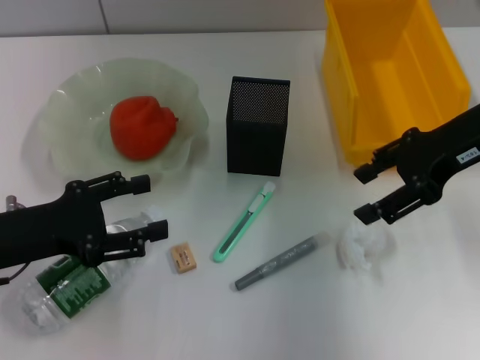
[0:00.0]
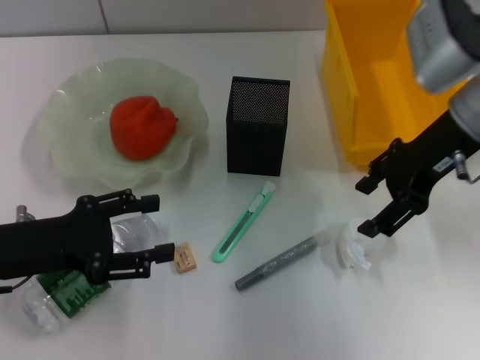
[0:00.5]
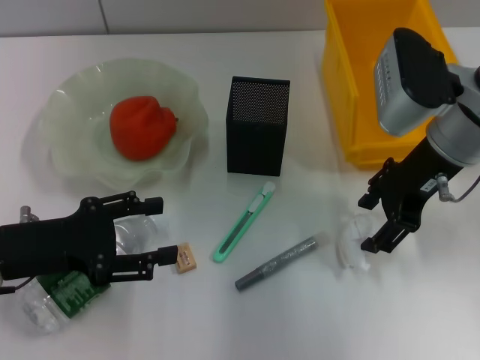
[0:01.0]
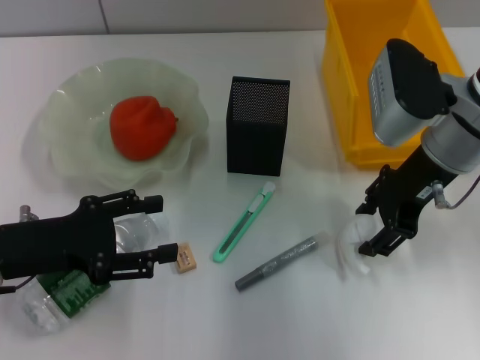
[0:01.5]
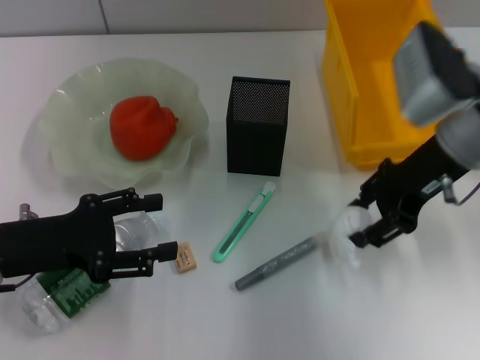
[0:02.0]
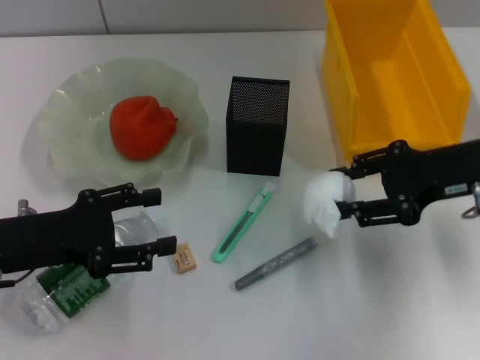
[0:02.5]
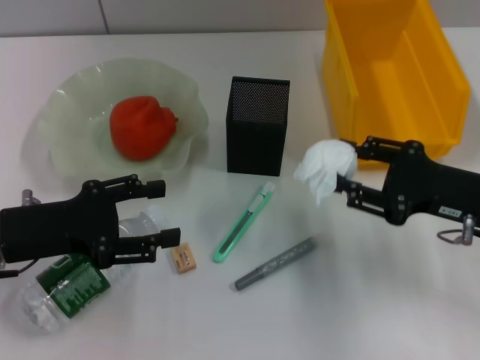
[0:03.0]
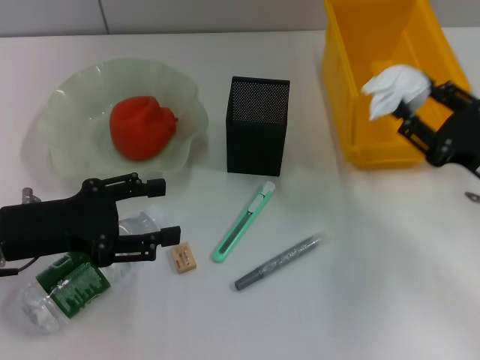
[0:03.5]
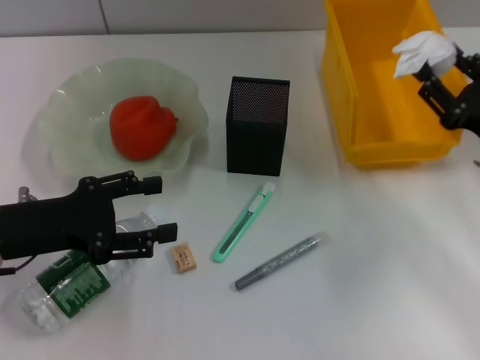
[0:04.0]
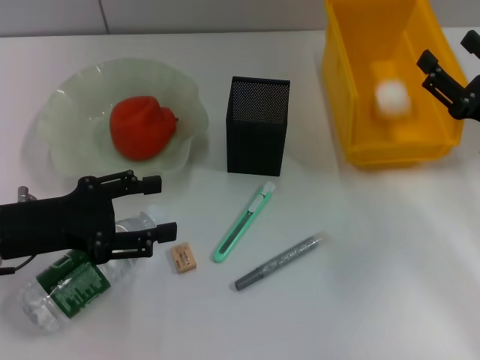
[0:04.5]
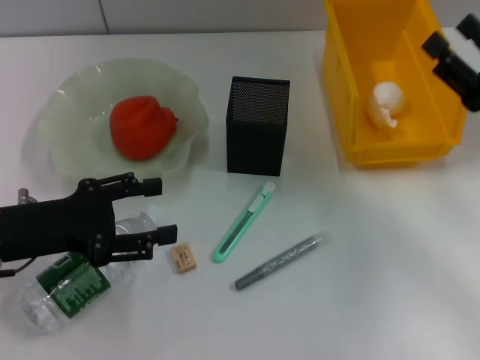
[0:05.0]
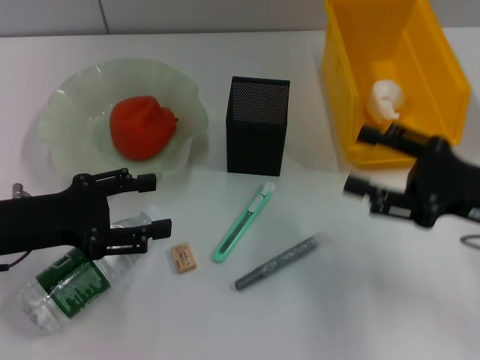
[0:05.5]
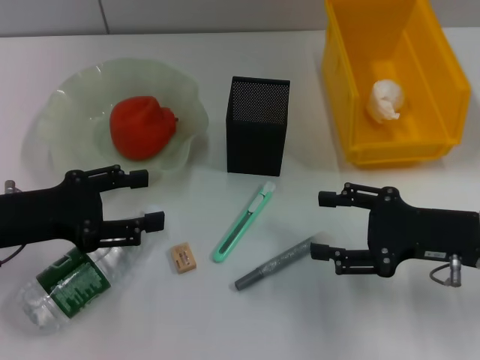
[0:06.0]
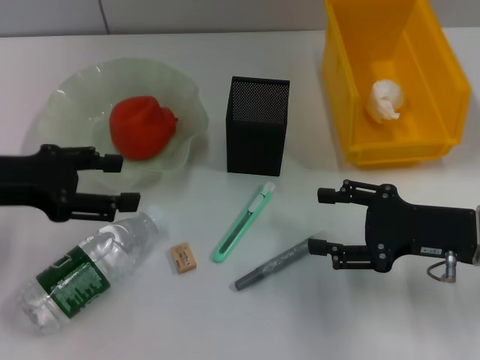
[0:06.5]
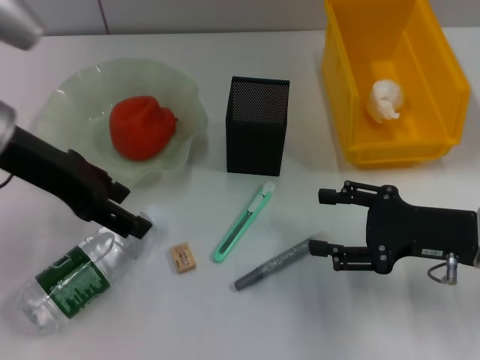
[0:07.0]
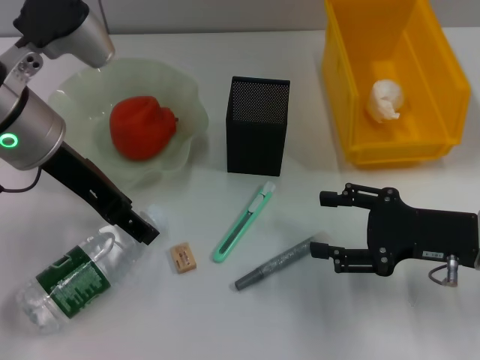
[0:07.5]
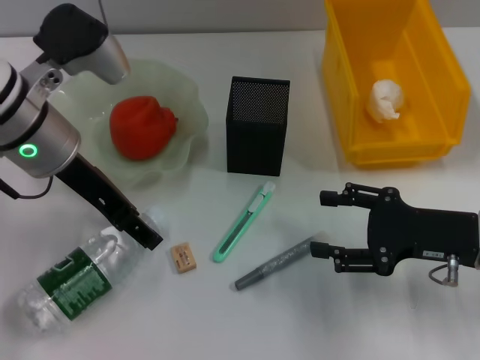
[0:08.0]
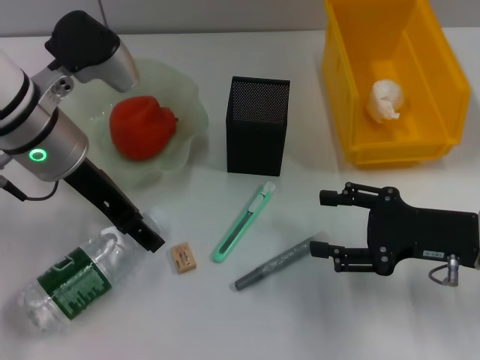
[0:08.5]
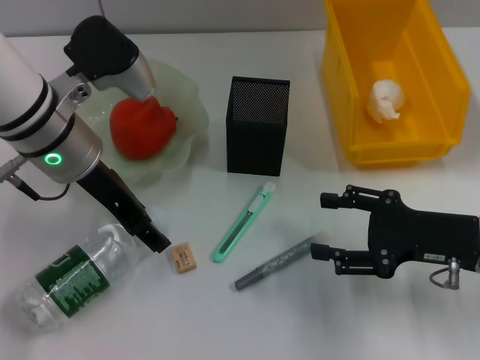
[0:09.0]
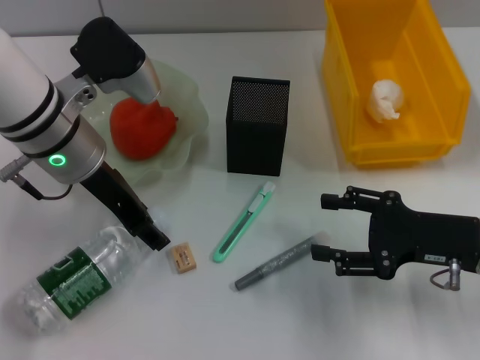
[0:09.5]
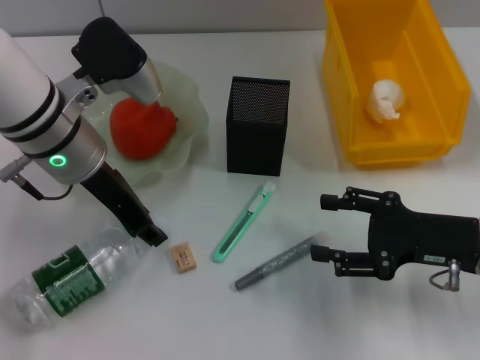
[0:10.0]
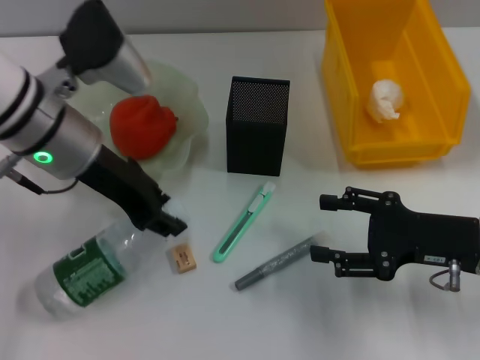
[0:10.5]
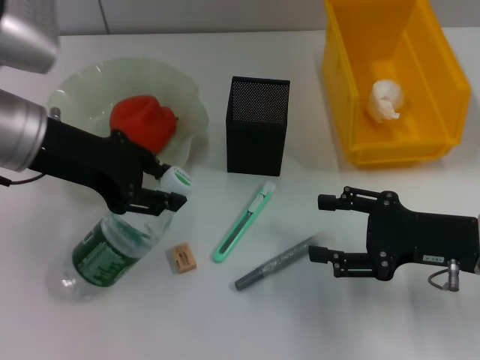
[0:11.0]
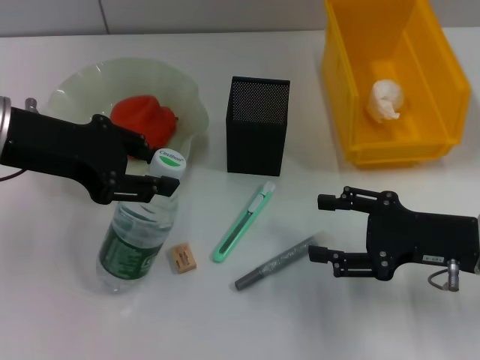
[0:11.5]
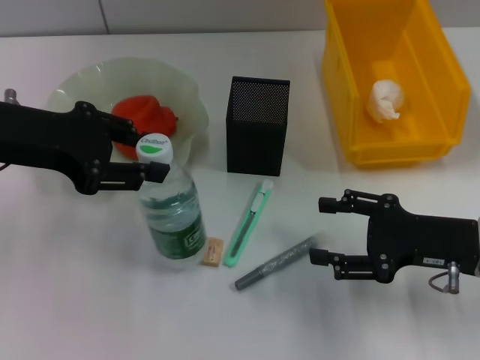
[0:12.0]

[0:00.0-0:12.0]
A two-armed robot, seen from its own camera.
Step, 2.0 to 4.5 s: Place the paper ball into the trash can with the right hand.
Step, 5.0 to 10.0 s: Grab the water bottle with the left hand.
2.0 to 4.0 s: The right gripper heads to the right, downward and backward, covering about 15 cm.
6.0 to 8.0 s: The left gripper heads to the right, forward and upward, covering approximately 15 cm.
8.0 to 10.0 s: The left gripper closes.
10.0 to 12.0 s: The left gripper heads to the left, covering approximately 10 cm.

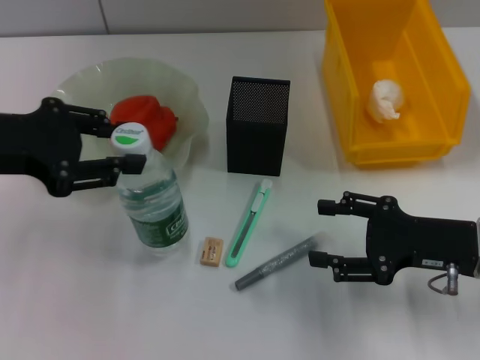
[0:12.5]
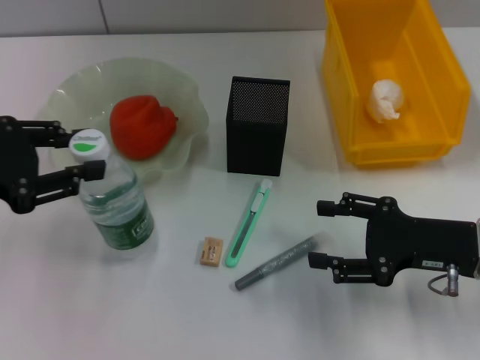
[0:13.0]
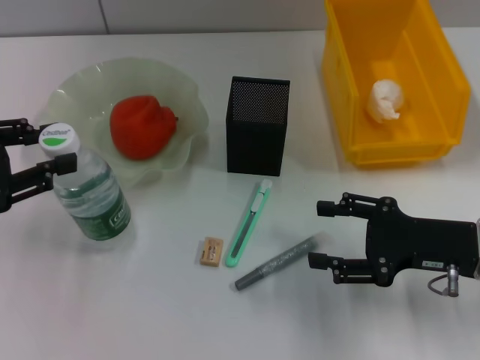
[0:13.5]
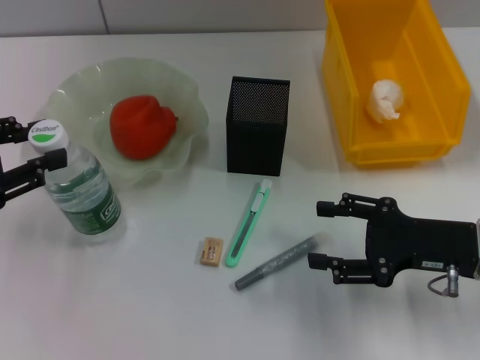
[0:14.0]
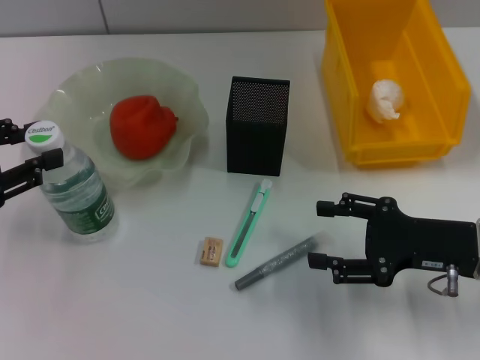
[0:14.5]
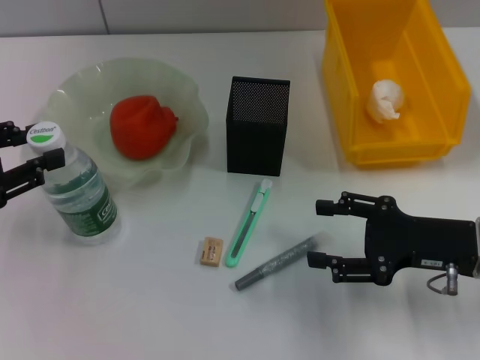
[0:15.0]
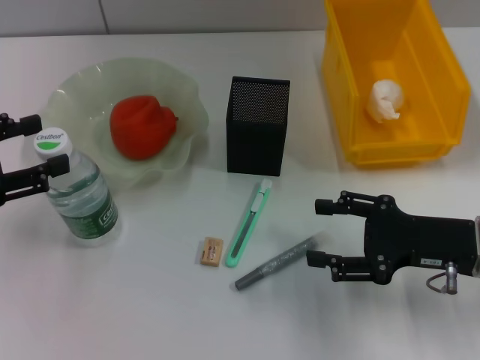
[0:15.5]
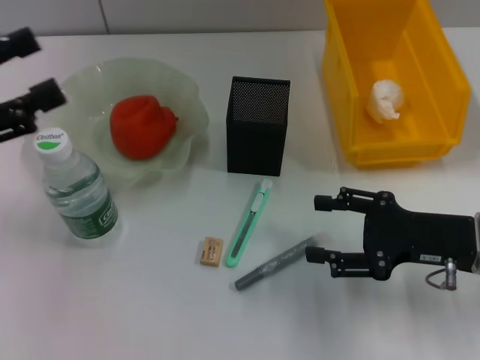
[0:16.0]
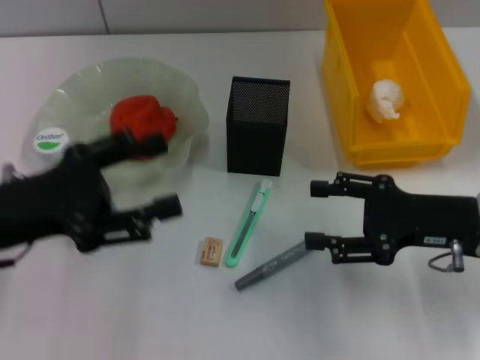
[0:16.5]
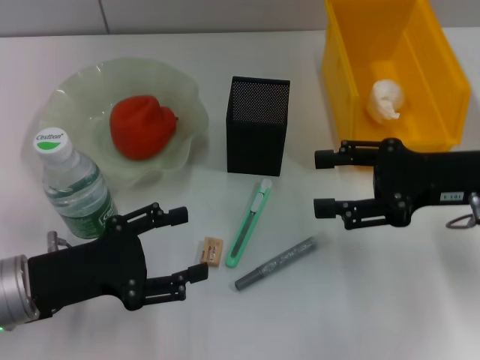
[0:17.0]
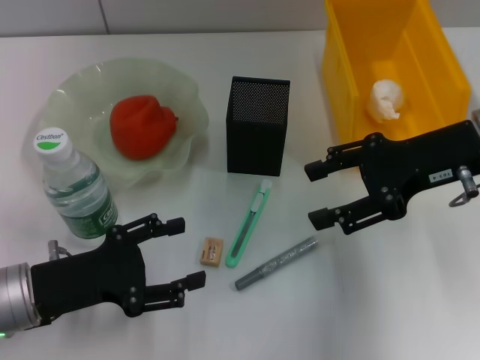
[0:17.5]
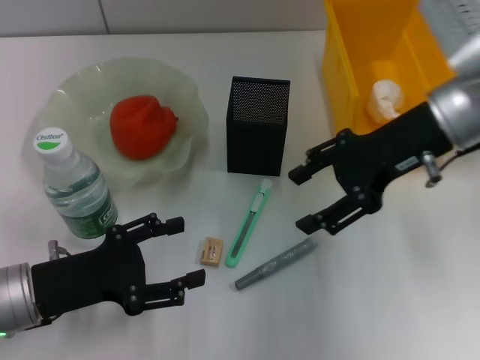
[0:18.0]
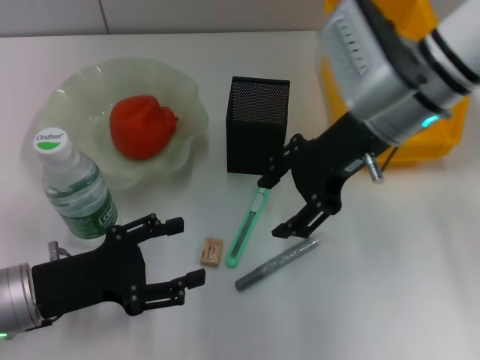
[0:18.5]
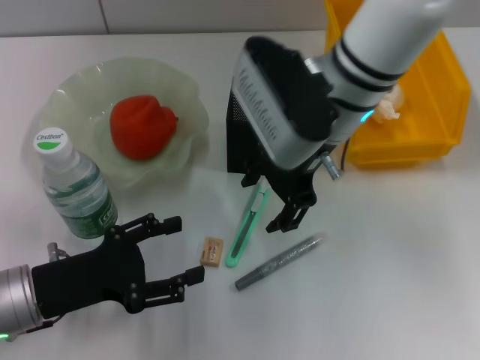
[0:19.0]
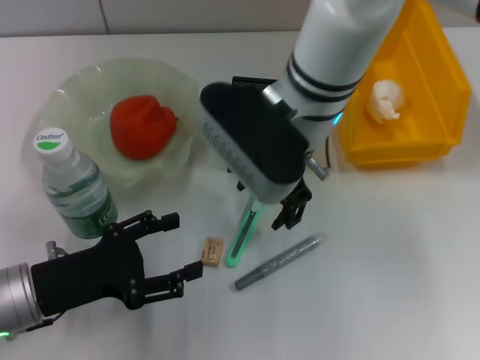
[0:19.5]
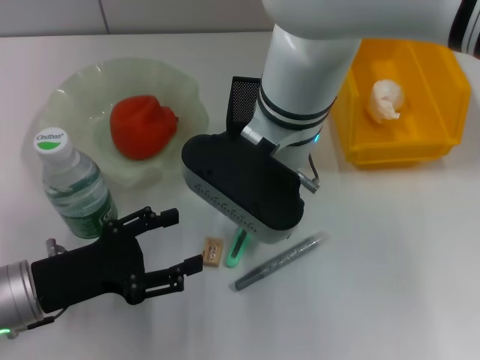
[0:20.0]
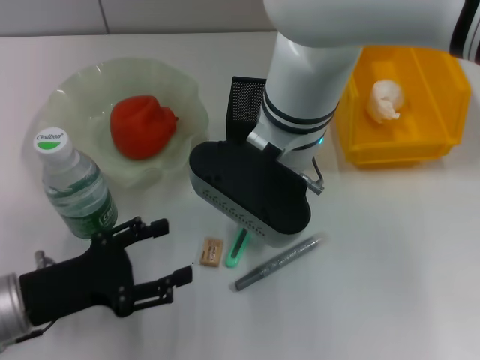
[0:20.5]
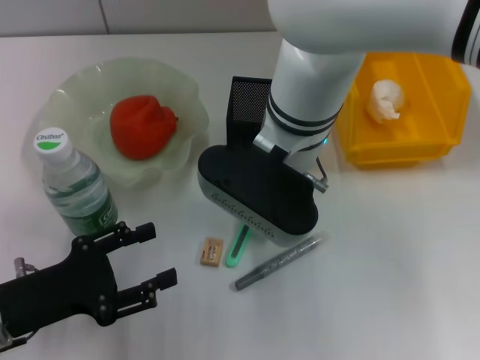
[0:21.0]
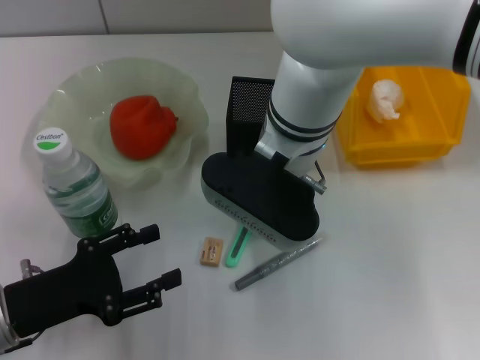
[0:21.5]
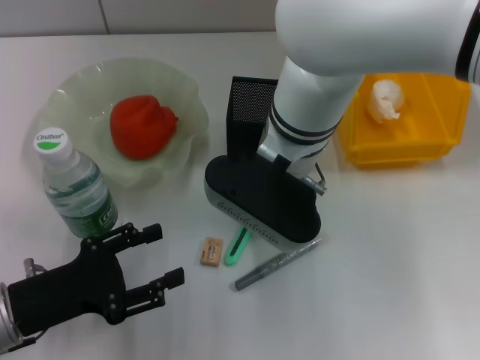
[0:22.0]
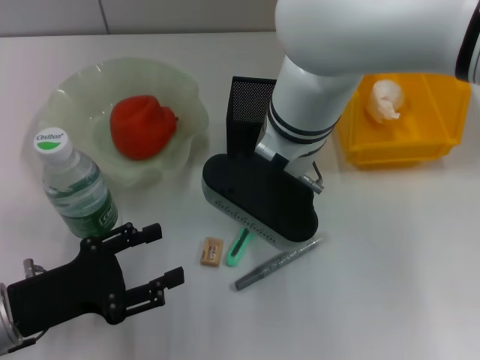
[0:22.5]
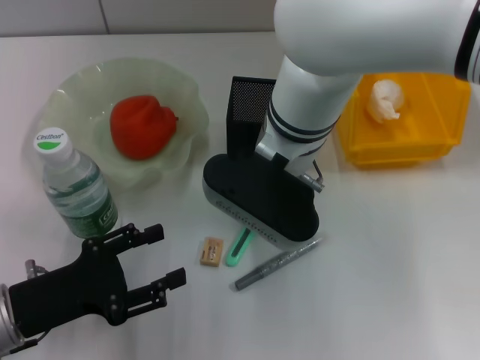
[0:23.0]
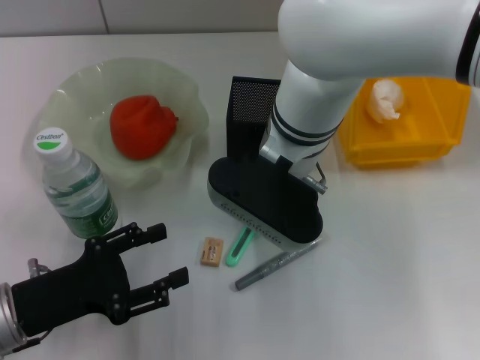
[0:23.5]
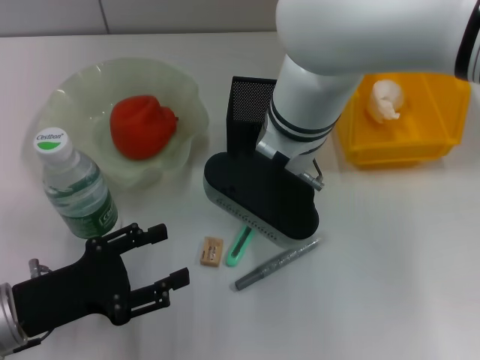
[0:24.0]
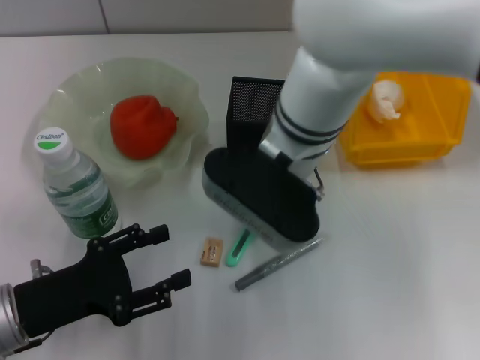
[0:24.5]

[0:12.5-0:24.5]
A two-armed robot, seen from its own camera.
Step, 12.5 to 15.5 s: Place the water bottle on the table with the left hand.
12.5 to 14.5 s: The left gripper goes some 5 cm to the left.
14.5 to 16.5 s: The left gripper heads to the right, covering about 10 cm, and opens up.
16.5 to 18.5 s: The right gripper shifts roughly 20 cm to the left, upward and forward; the left gripper is displaced downward by approximately 10 cm.
18.5 to 20.5 s: The right gripper heads to the left, covering about 10 cm.
20.5 to 22.5 s: The right gripper closes.
22.5 to 24.5 s: The grippers make only small movements.

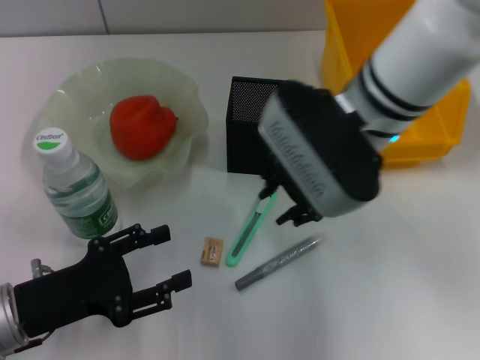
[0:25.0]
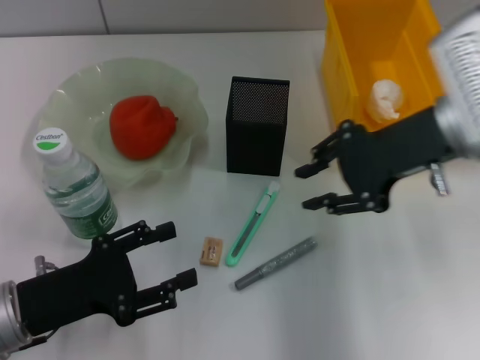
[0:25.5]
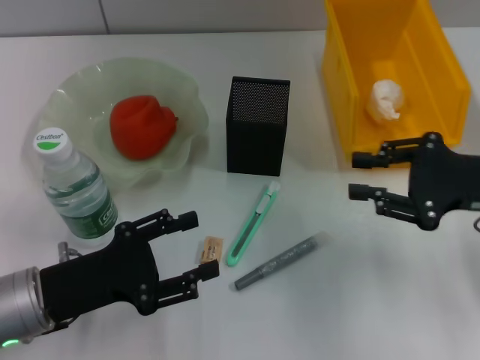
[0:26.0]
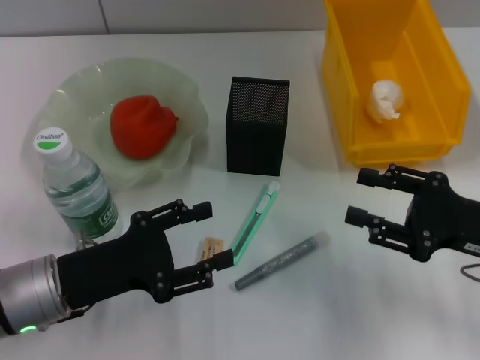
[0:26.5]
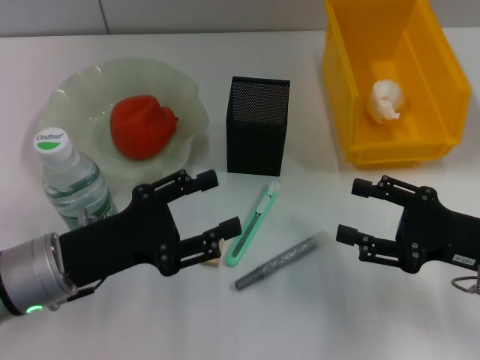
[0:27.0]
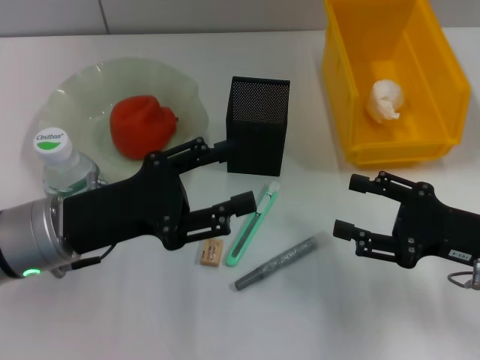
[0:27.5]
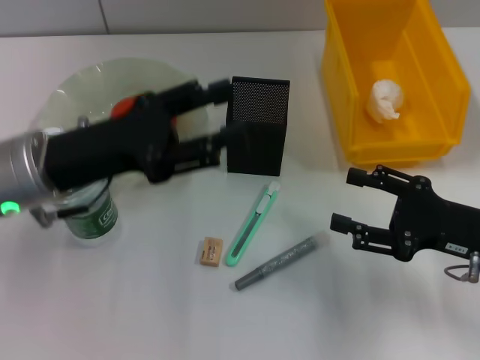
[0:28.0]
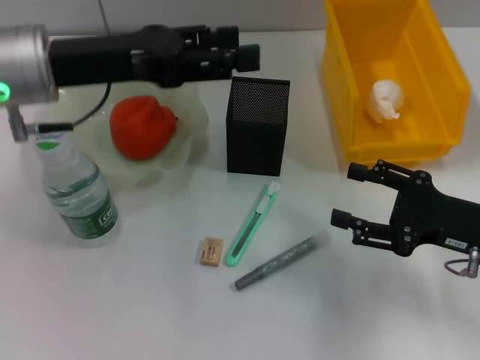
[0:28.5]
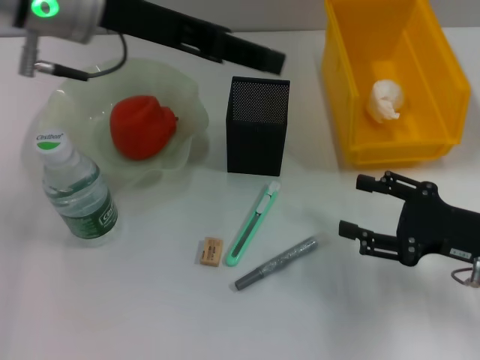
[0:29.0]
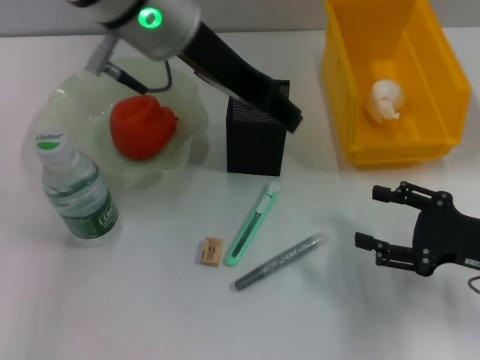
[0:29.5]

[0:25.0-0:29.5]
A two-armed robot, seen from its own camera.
25.0 to 27.0 s: The left gripper changes place by approximately 5 cm, while the right gripper heads to the right, downward and backward, covering some 25 cm, and opens.
27.0 to 29.5 s: The left gripper is displaced upward, forward and to the right by some 30 cm.
